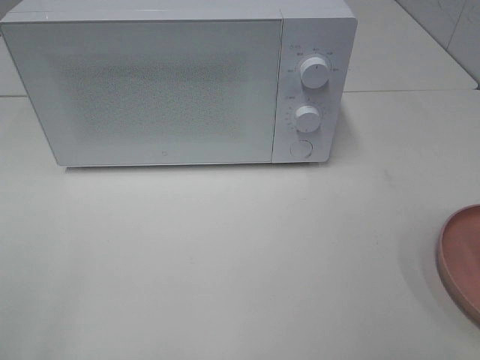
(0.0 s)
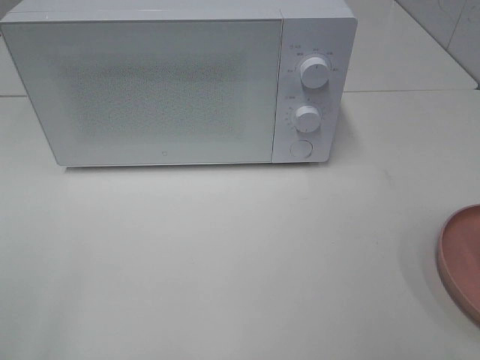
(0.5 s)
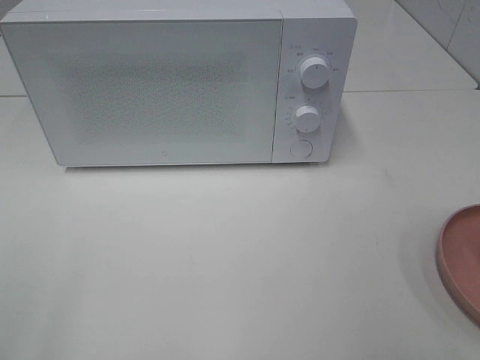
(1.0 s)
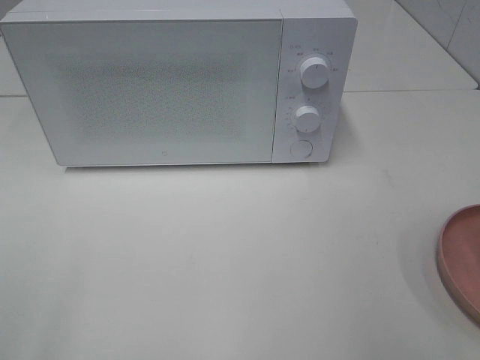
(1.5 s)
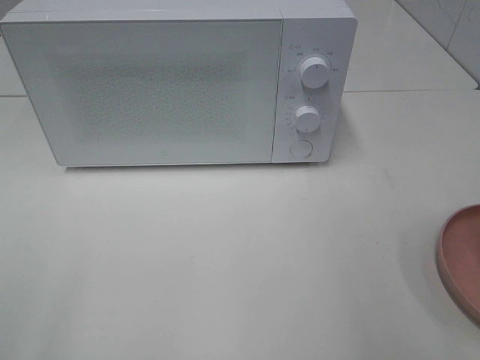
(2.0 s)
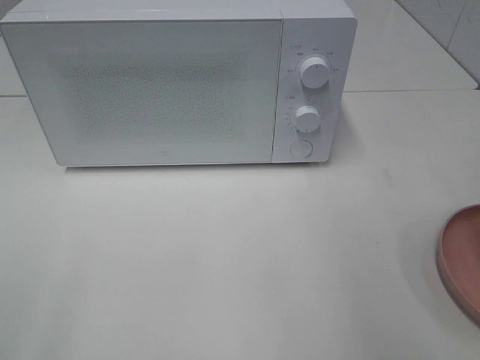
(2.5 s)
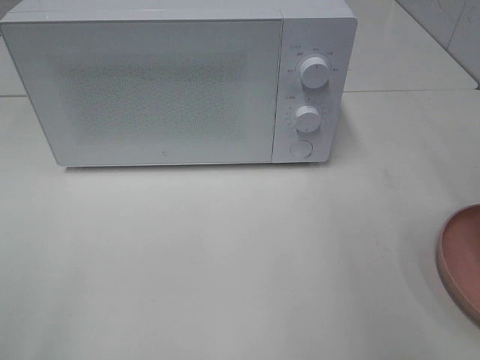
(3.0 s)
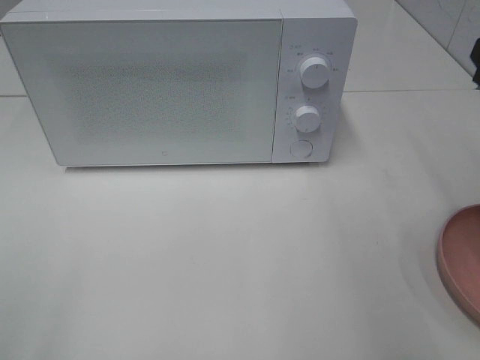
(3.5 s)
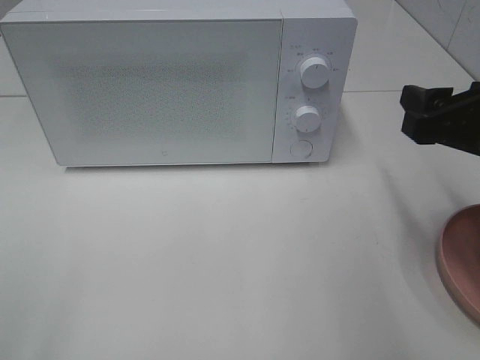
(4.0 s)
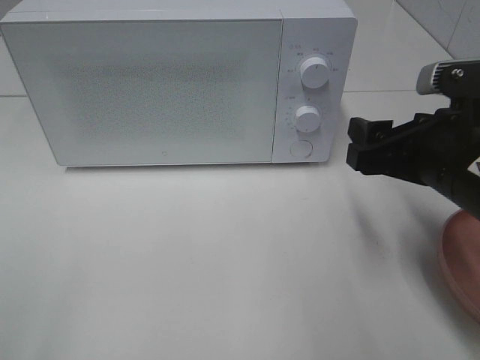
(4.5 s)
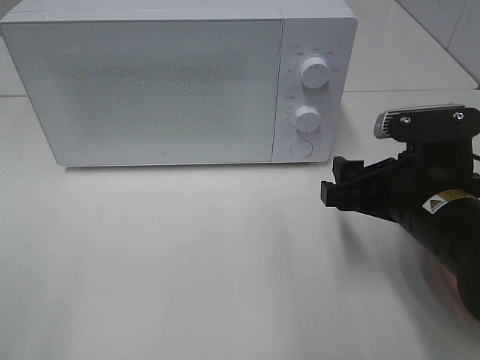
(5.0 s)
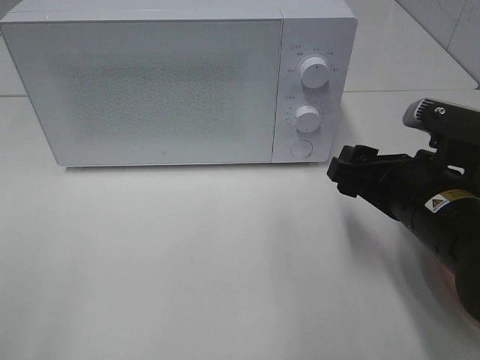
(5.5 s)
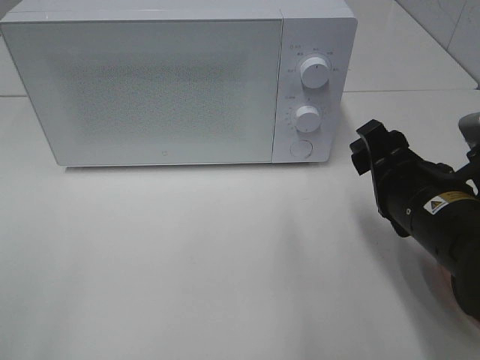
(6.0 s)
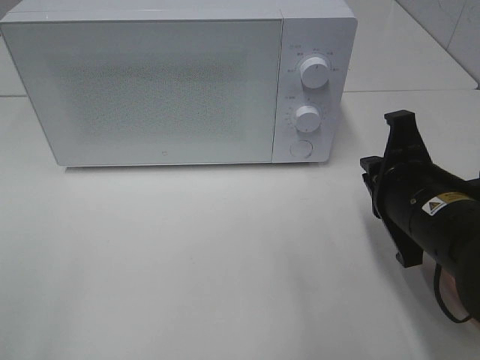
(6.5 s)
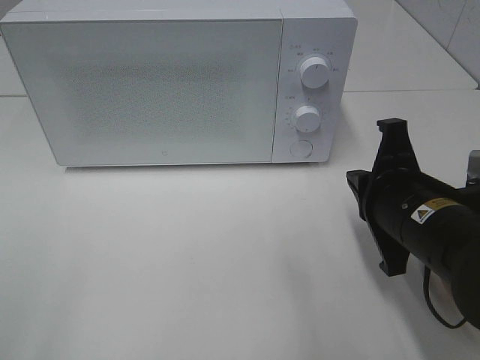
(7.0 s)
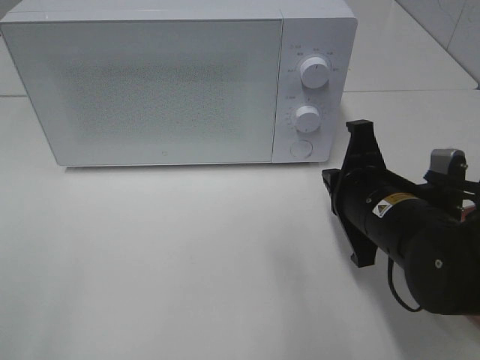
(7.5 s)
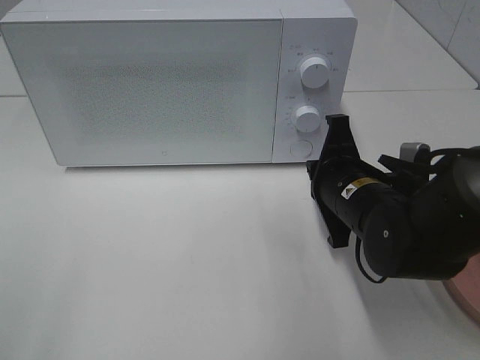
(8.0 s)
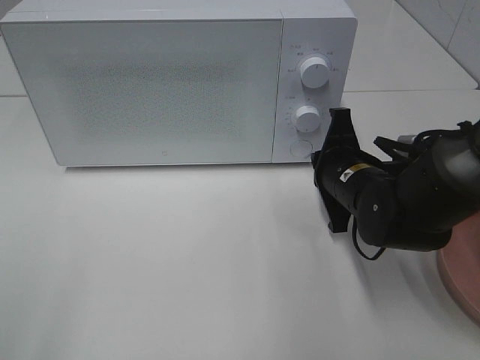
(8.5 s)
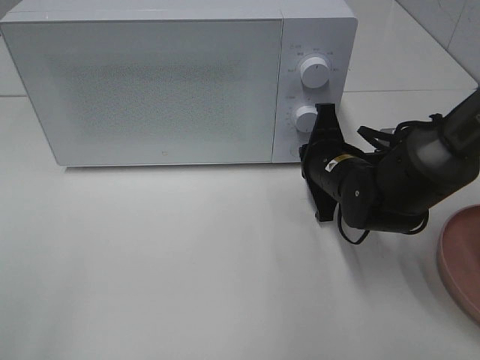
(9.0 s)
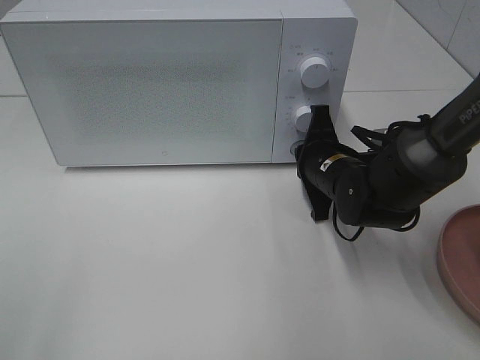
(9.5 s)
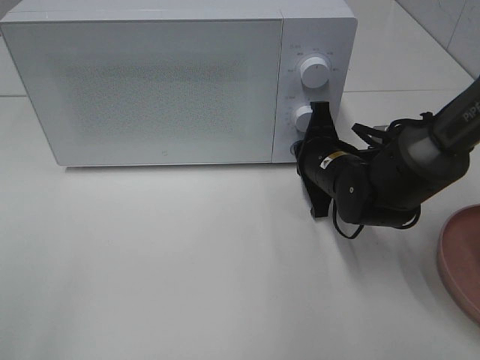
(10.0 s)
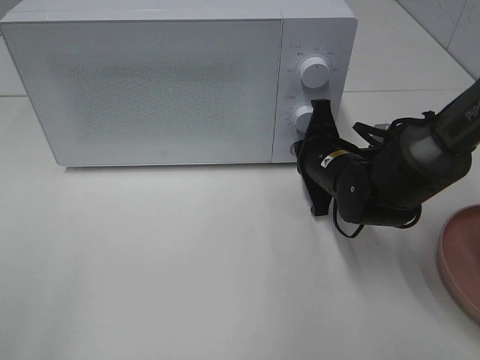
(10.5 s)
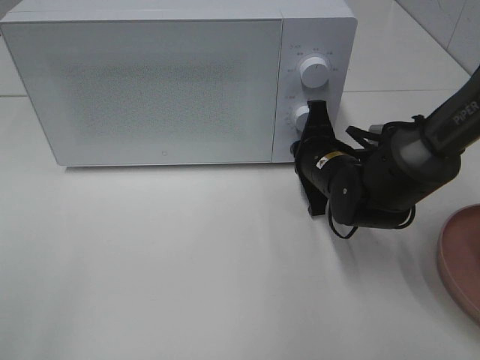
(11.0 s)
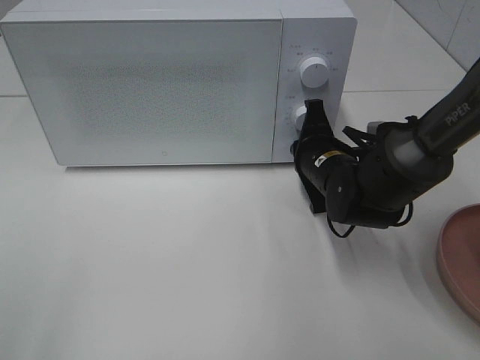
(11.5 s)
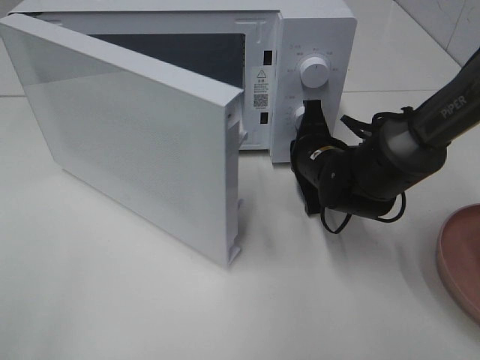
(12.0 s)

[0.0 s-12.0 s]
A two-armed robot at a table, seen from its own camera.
Task of the whole recording: Heat the burger.
2.0 to 4.0 s: The right gripper moves forward, downward and to the left, roughly 15 cm.
4.0 to 6.0 s: The right gripper travels downward and to the left by roughly 10 cm.
6.0 to 8.0 s: The right gripper shifts approximately 5 cm forward, and closes up.
8.0 to 10.0 s: The right gripper travels forward by approximately 5 cm.

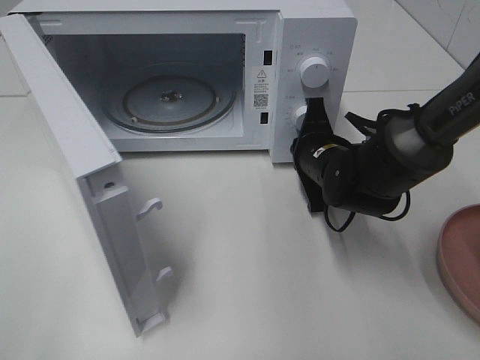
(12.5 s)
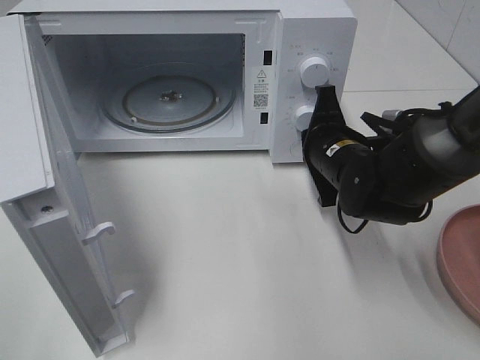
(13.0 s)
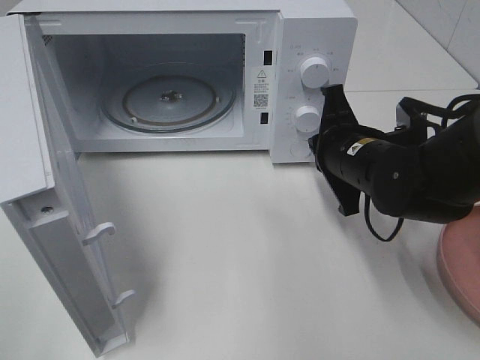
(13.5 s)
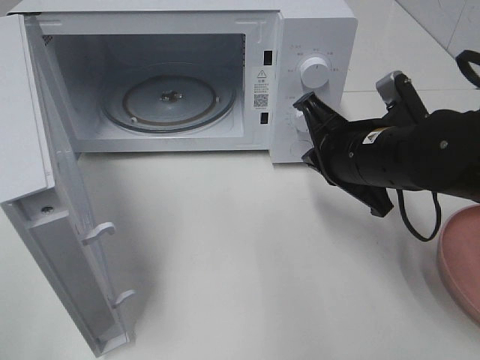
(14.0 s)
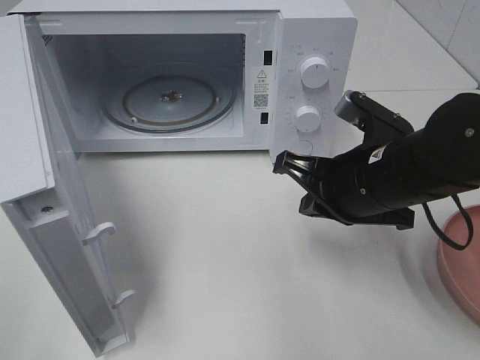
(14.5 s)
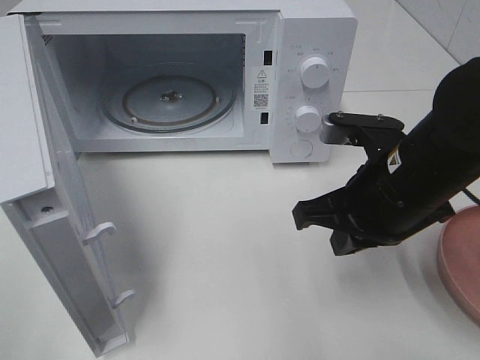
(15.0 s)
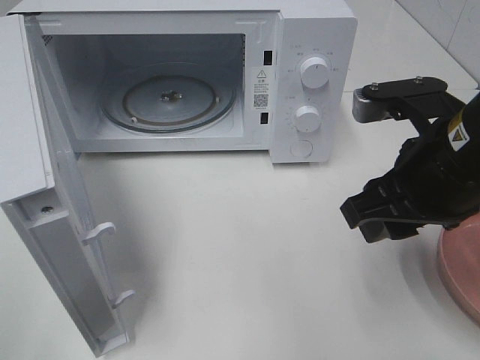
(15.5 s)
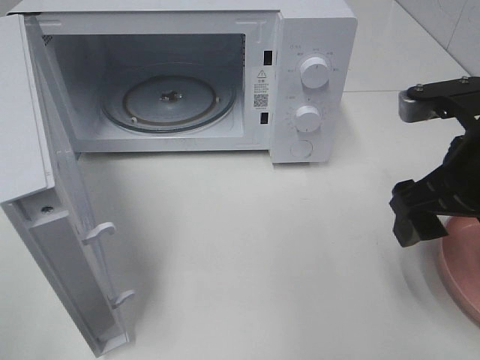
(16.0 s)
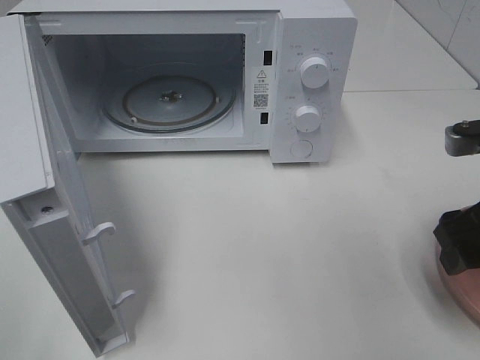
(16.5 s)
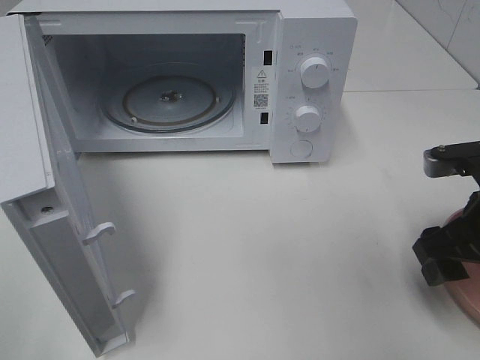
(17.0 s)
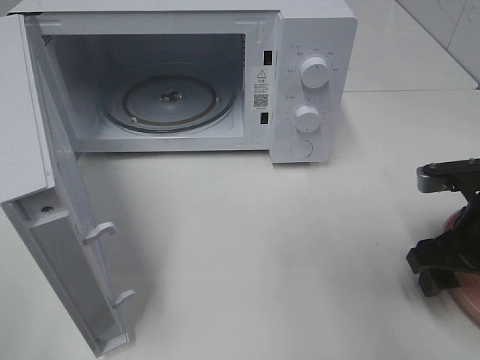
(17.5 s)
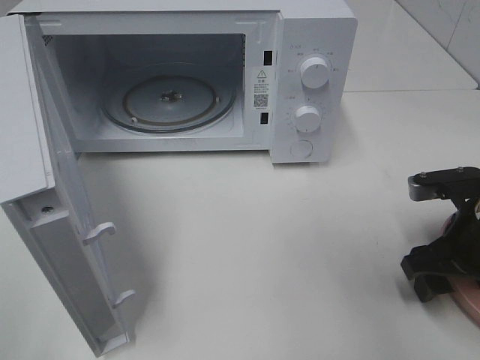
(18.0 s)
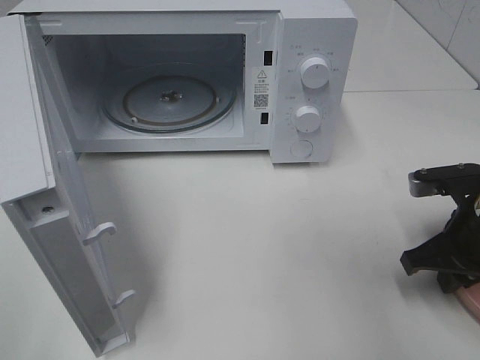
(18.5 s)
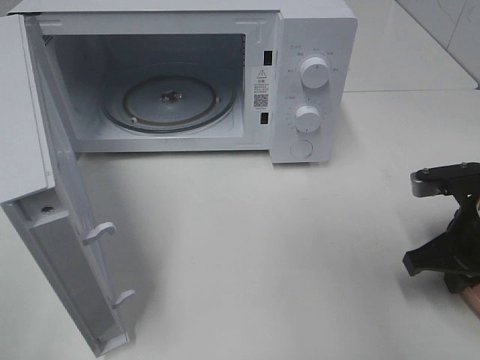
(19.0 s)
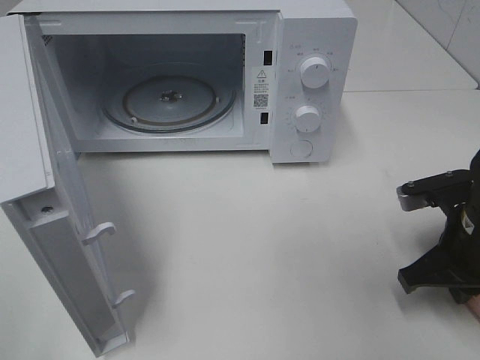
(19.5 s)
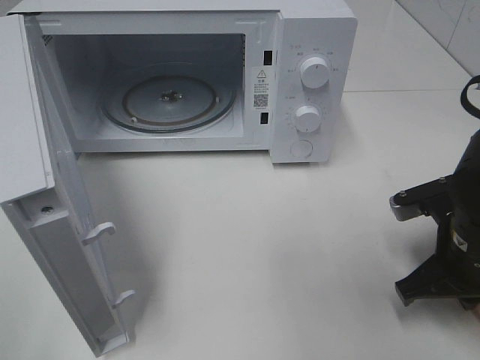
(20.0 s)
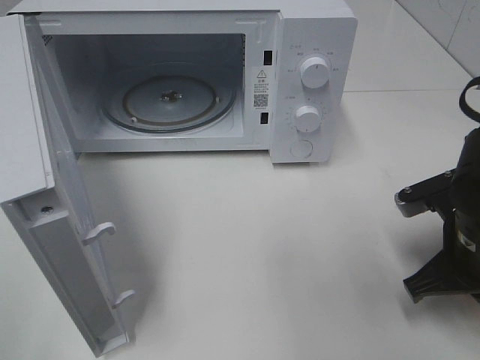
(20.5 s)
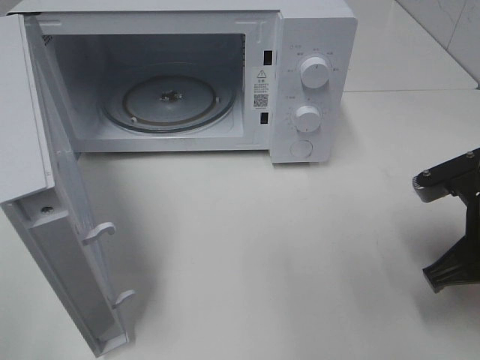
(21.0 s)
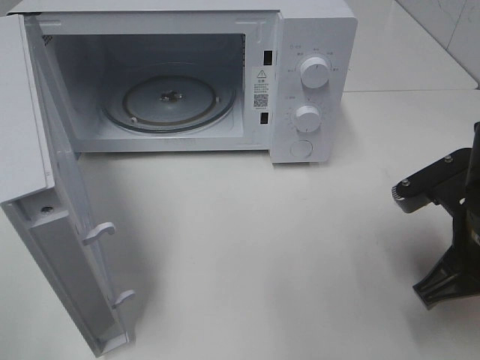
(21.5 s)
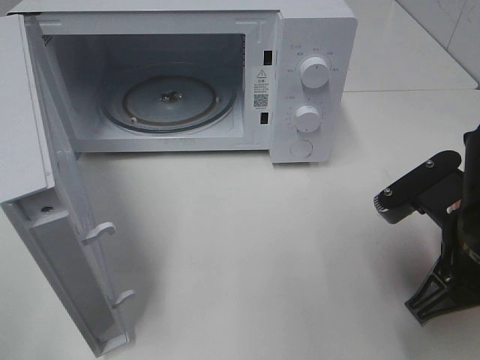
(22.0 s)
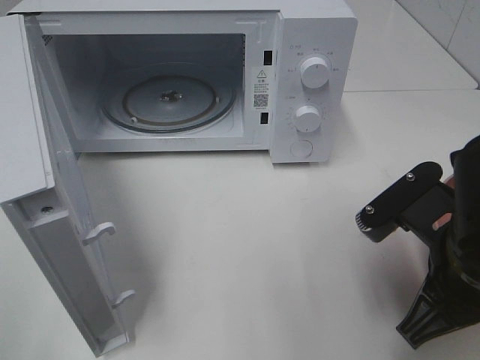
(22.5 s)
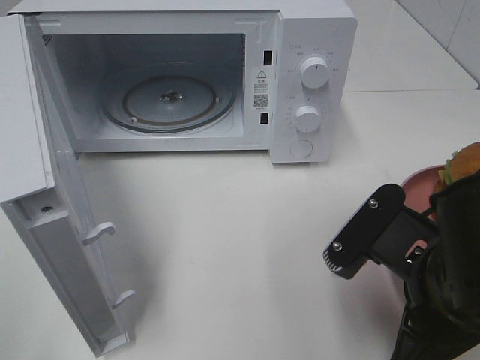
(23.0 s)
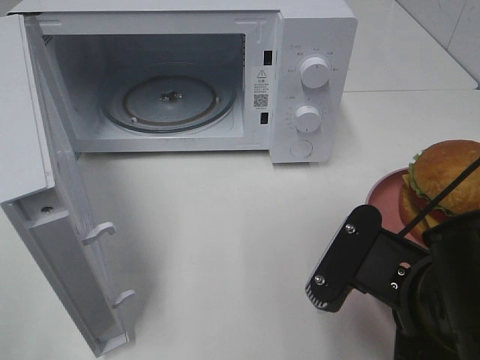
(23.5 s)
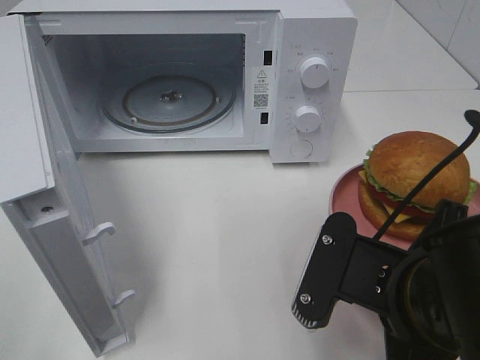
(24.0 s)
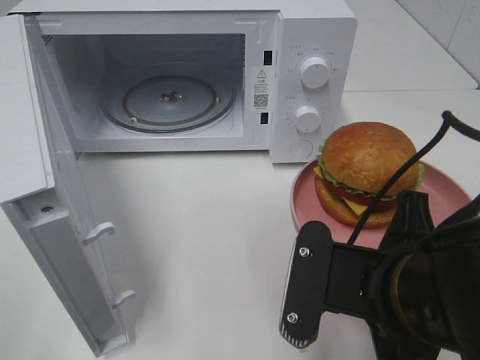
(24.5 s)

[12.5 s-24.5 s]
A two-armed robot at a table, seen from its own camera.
Task of the whole recording: Heat the burger.
Step, 13.5 to 19.5 s: Right hand: grab the plate with the hamburger.
12.5 to 14.5 s: The right gripper is displaced backward and upward by approximately 15 cm.
14.5 to 16.5 s: The right gripper goes approximately 10 cm to the right, and opens up.
16.5 to 18.5 s: The right gripper goes roughly 10 cm downward, and closes up.
18.5 to 20.5 s: The grippers move only a little.
20.5 to 22.5 s: The right gripper travels backward and to the left by approximately 10 cm.
22.5 to 24.5 s: The right gripper goes some 5 cm to the left.

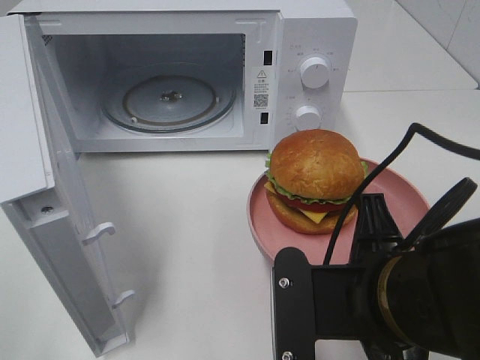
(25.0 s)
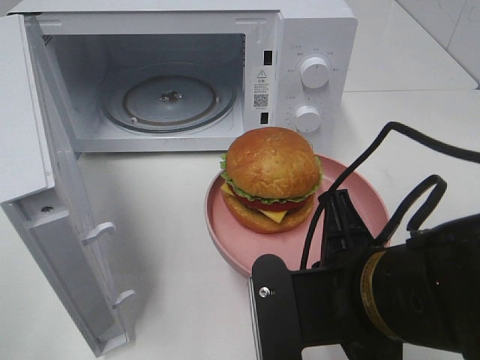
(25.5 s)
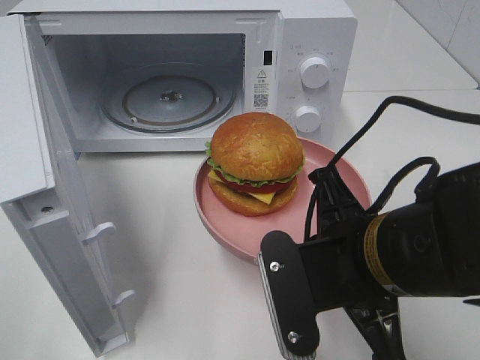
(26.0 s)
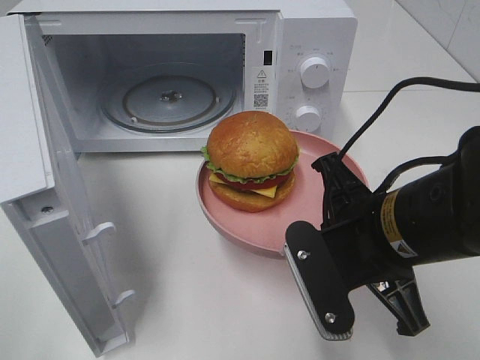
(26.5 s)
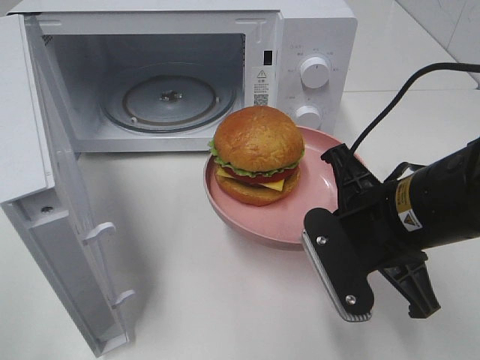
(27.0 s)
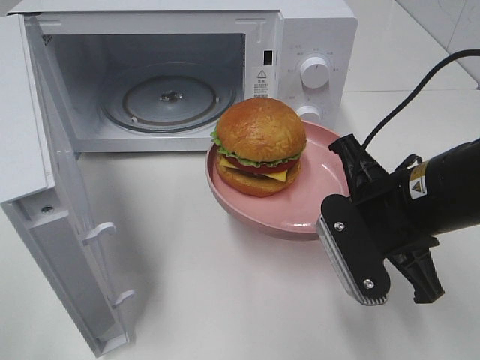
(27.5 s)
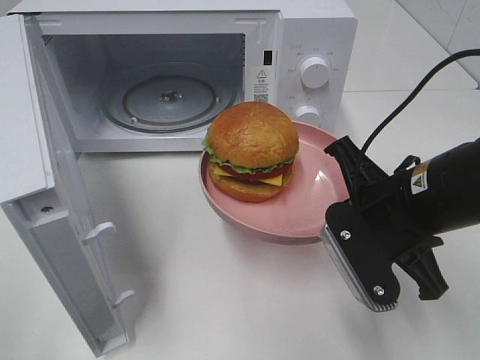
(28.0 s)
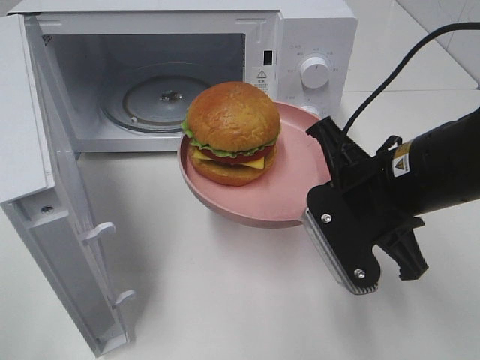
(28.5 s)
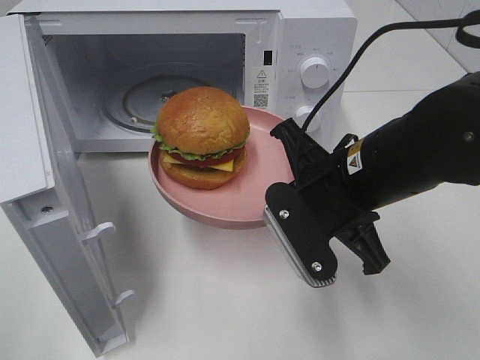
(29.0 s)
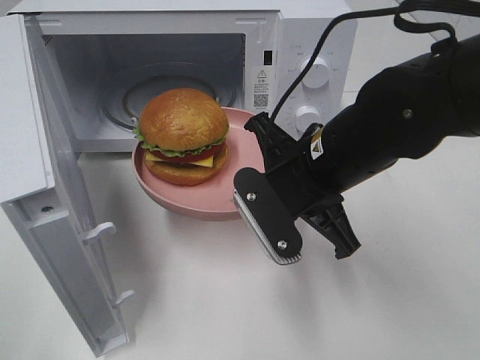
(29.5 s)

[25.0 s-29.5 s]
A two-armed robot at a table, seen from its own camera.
Task of the whole recording: Heat the burger.
25.0 to 27.0 s: The right gripper is displaced forward by roughly 10 cm.
27.0 to 29.5 s: The right gripper heads to the left and forward, covering some 10 cm.
